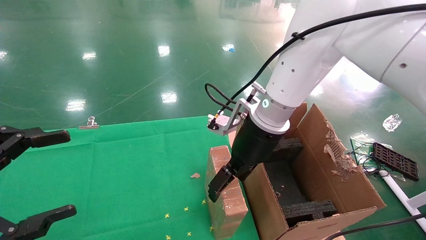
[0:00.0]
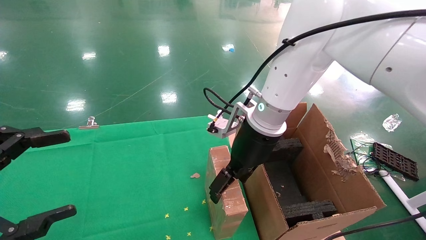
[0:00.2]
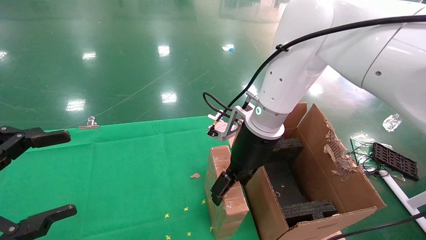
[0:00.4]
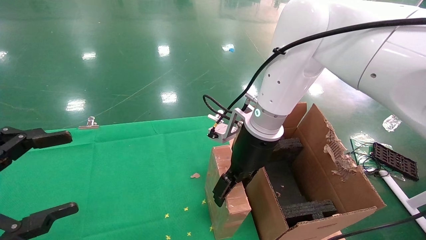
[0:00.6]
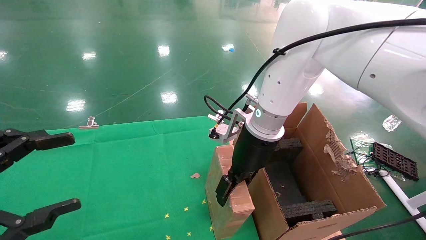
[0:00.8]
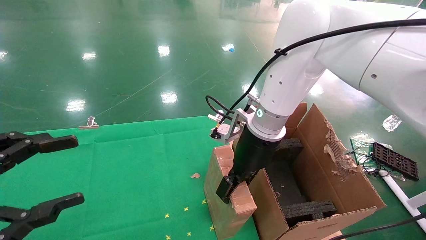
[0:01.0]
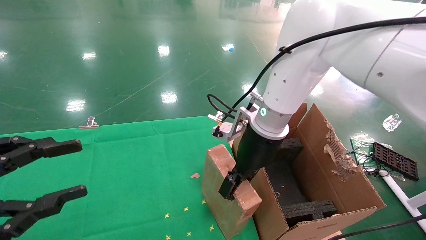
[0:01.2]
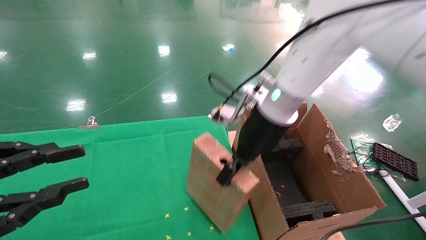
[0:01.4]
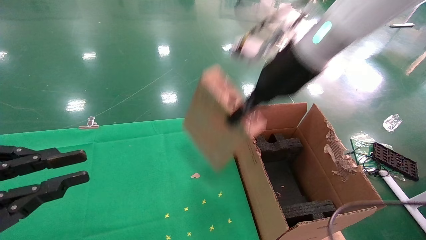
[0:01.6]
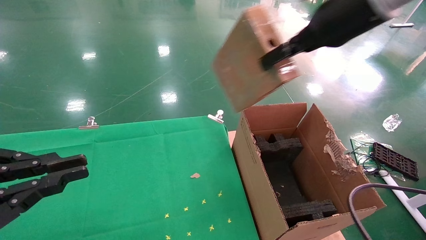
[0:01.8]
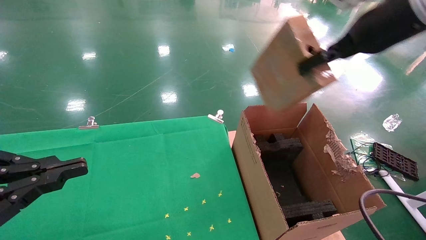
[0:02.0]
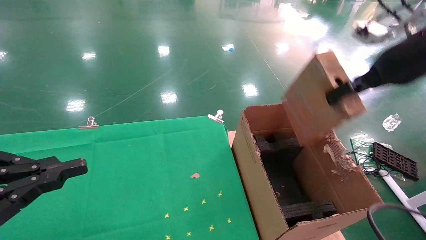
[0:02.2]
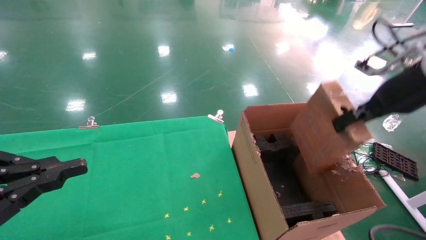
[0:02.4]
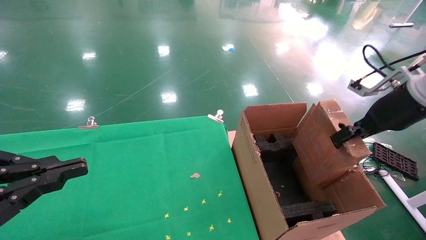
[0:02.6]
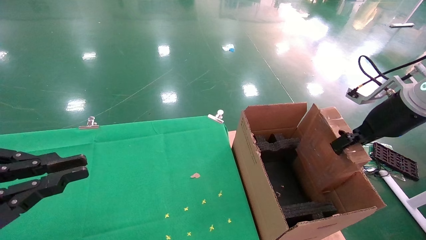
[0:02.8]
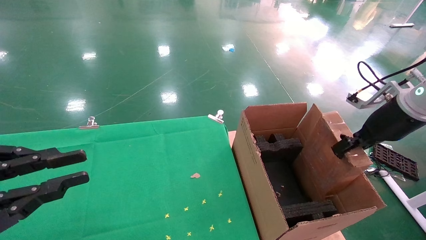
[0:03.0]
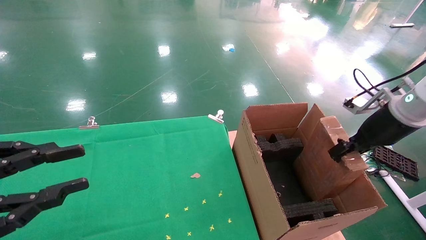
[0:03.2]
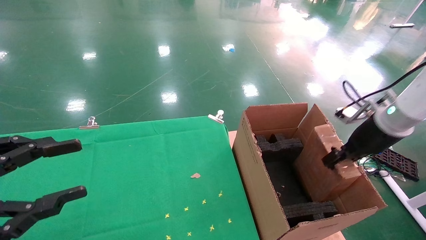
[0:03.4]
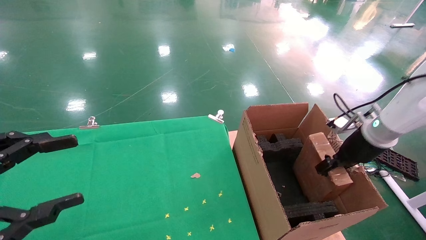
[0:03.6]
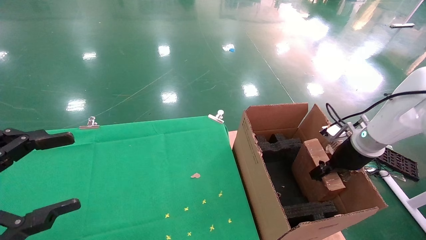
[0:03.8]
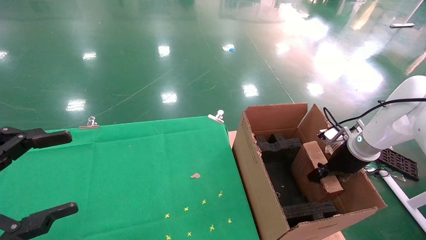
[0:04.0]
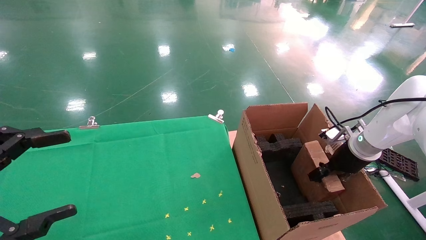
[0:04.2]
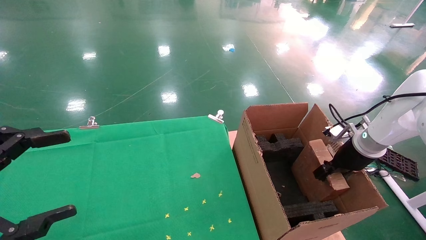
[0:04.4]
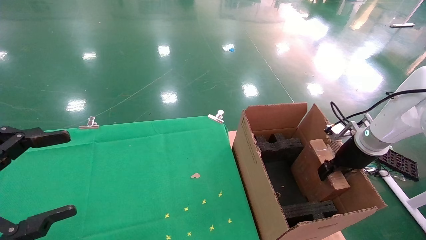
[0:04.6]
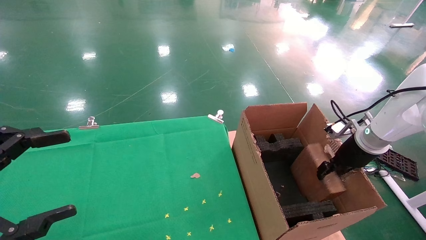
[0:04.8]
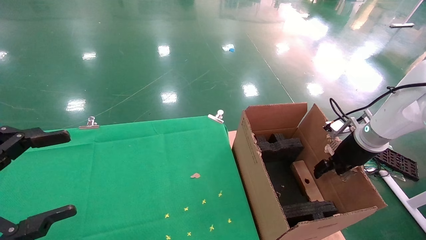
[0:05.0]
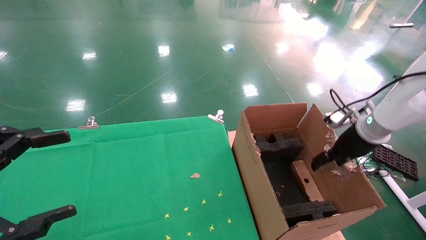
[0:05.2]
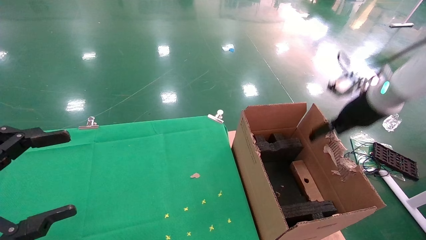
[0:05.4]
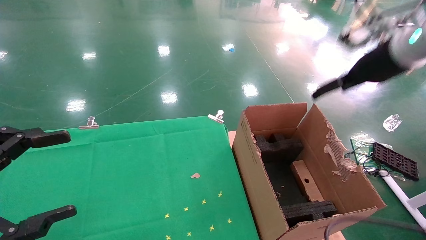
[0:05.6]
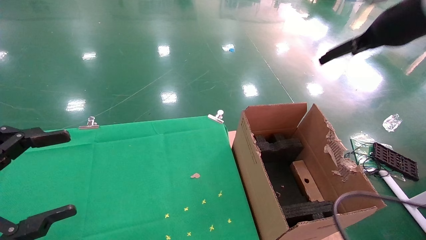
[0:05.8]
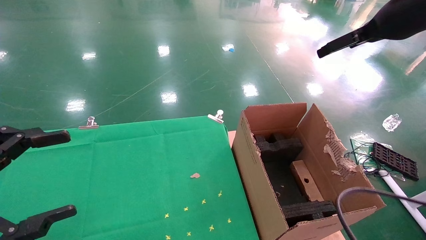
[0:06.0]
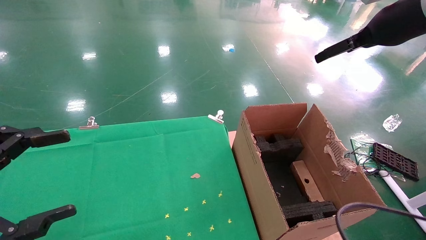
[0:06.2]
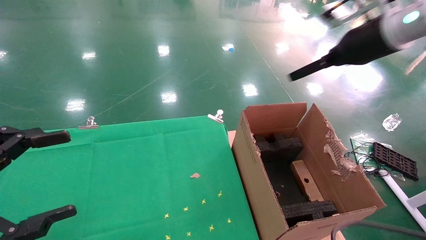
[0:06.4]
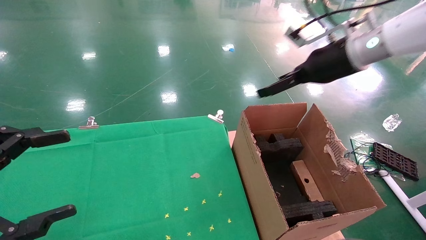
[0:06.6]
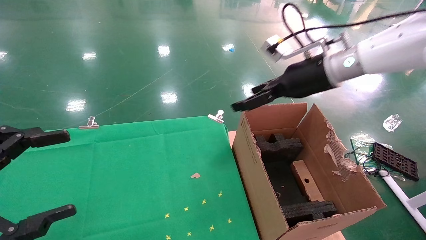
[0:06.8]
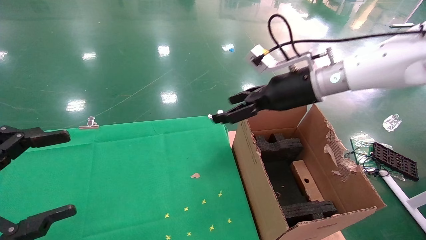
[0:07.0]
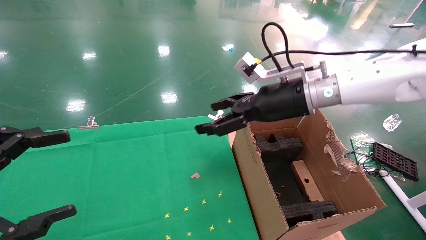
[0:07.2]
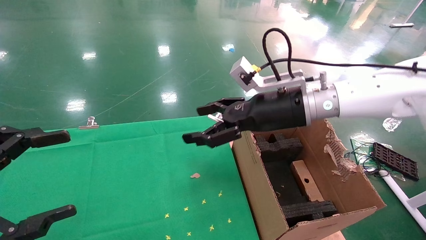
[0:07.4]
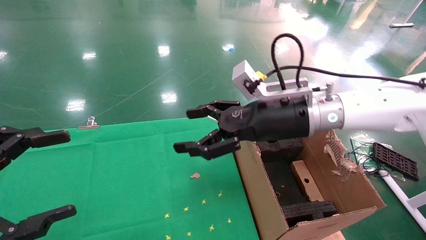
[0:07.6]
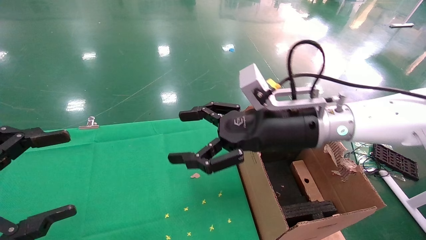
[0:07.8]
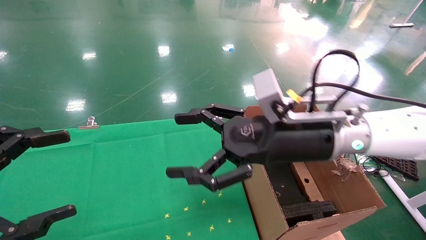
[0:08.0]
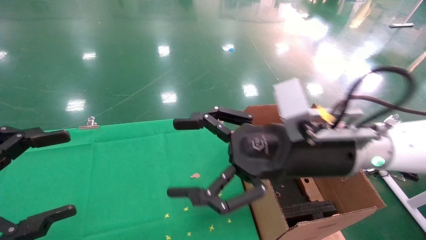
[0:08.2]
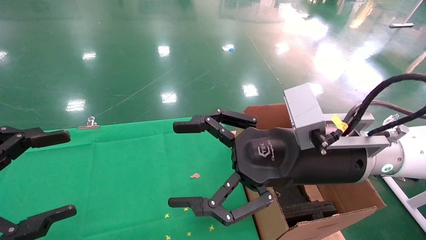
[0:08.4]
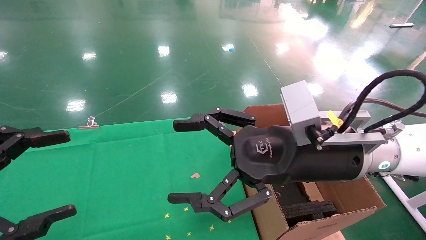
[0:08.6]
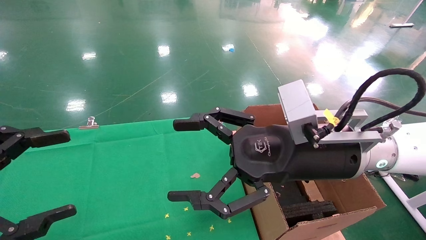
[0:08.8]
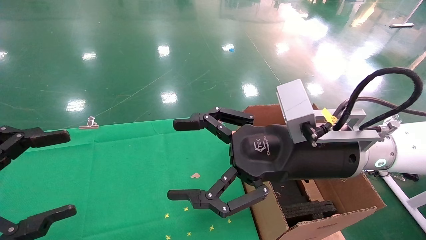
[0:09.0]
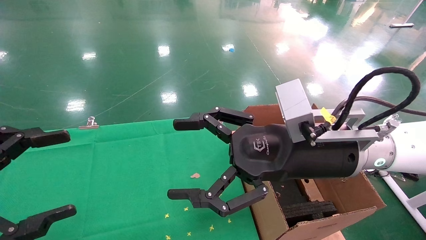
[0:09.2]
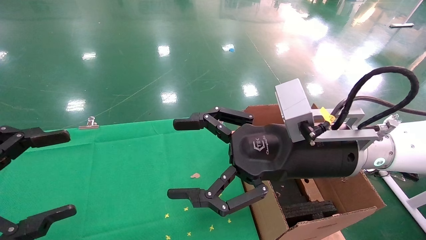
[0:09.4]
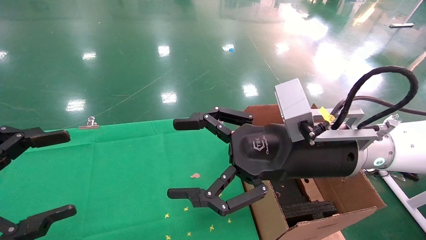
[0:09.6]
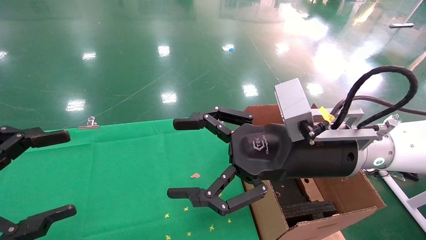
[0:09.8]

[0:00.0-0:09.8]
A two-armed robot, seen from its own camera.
Task of the whole recording: using a robotic arm to pick up a cardboard box and palace it the carton.
Step, 0:01.2 to 0:05.2: Place the mouse and the power cord paper box into the container.
0:00.0 to 0:01.4: The left gripper closes its fingers. Meanwhile the right gripper moves approximately 5 cm, and closes.
0:01.4 to 0:02.8: The right gripper shifts roughly 25 cm to the right. Meanwhile the left gripper closes.
0:02.8 to 0:04.2: The left gripper opens its fingers; the right gripper goes about 15 cm downward and forward.
0:04.2 to 0:05.6: The right gripper is displaced upward by approximately 20 cm, and opens.
0:05.6 to 0:07.0: The right gripper is displaced to the left by approximately 15 cm.
0:07.0 to 0:08.4: The right gripper goes some 15 cm backward.
0:08.4 to 0:09.8: Both grippers stay put.

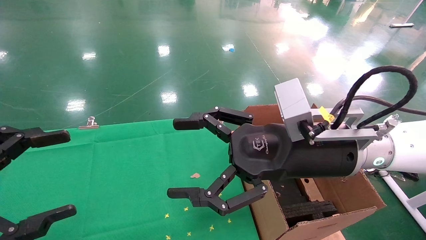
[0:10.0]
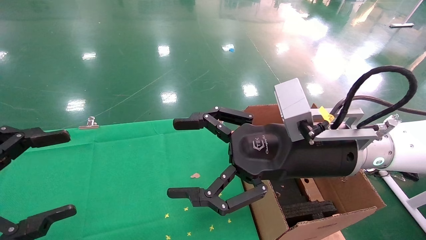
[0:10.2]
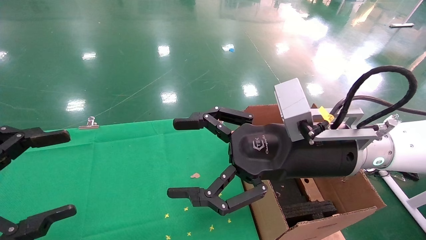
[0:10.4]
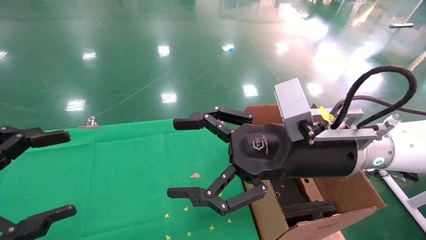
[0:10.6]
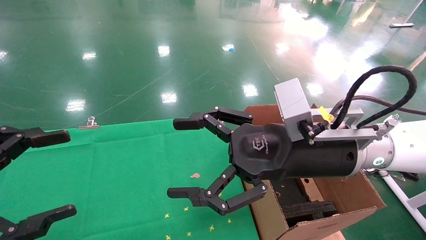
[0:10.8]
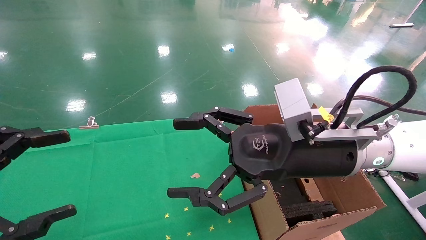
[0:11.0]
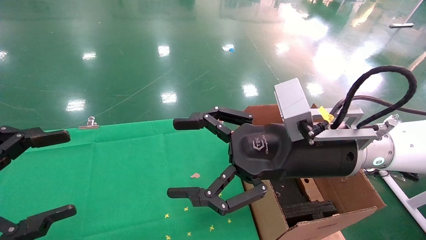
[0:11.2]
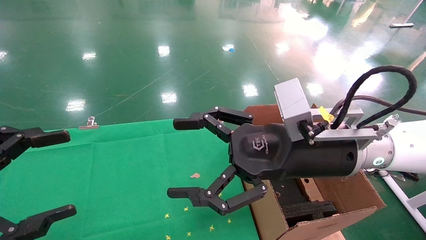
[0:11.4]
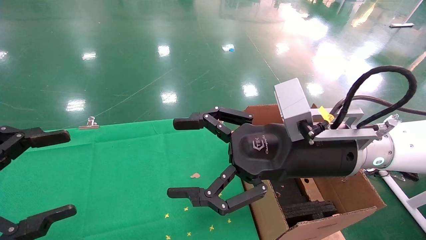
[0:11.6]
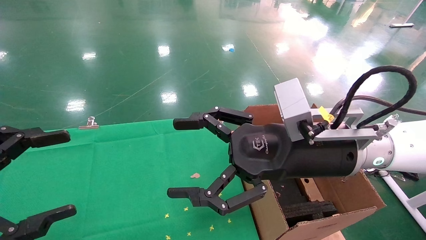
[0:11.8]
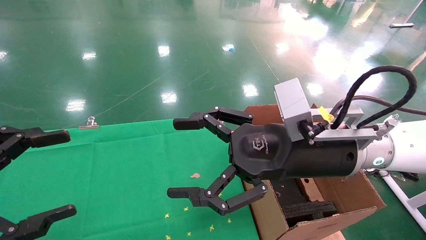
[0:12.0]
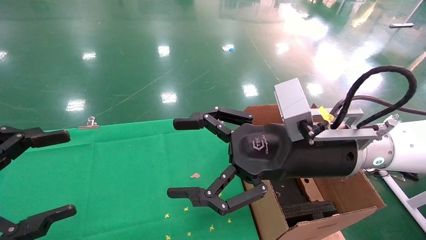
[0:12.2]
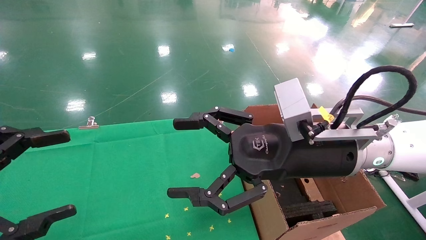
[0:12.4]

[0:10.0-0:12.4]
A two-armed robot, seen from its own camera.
Task of the whole recording: using a robotic arm to pick up a cardboard box and palace it the carton.
0:10.0 to 0:12.4: Neither gripper changes place.
